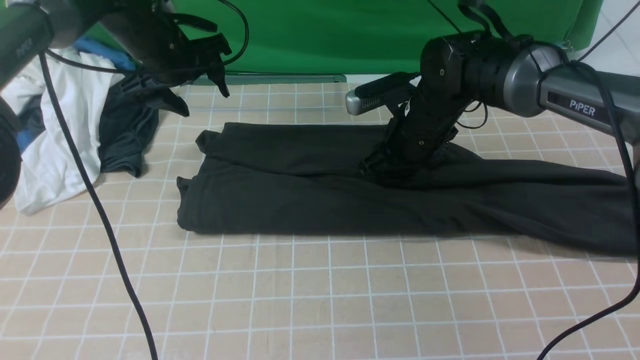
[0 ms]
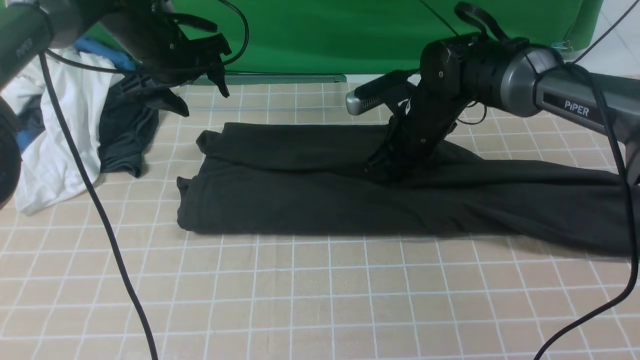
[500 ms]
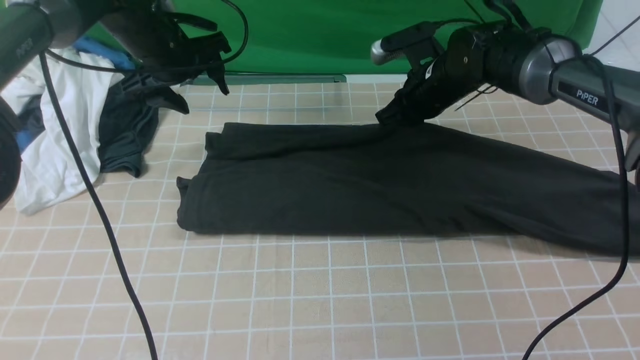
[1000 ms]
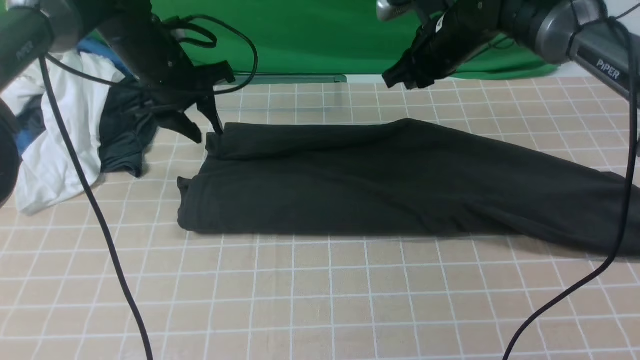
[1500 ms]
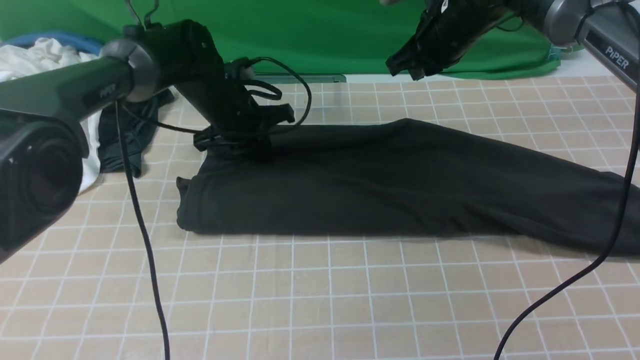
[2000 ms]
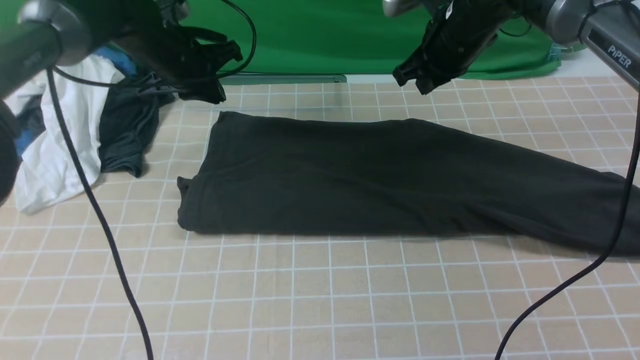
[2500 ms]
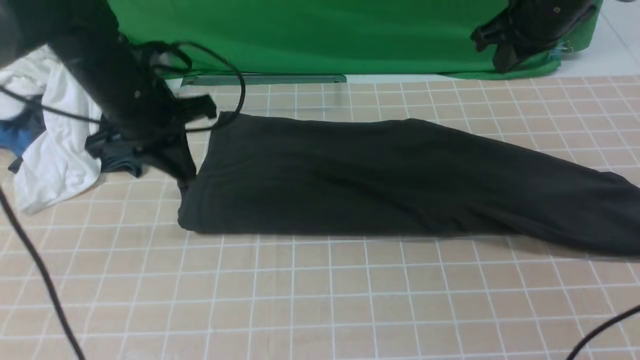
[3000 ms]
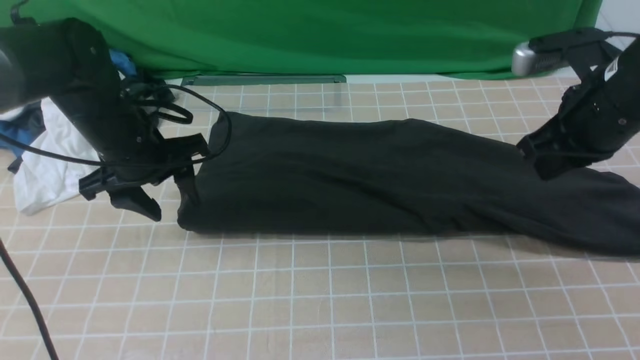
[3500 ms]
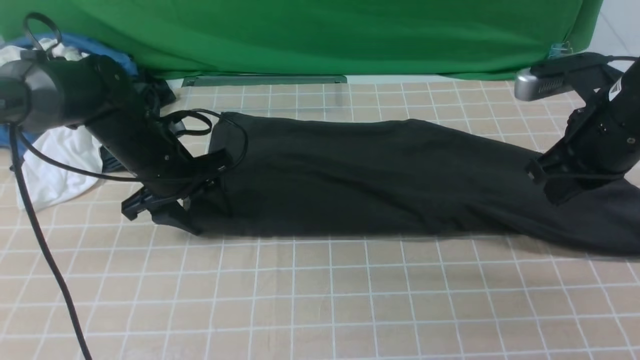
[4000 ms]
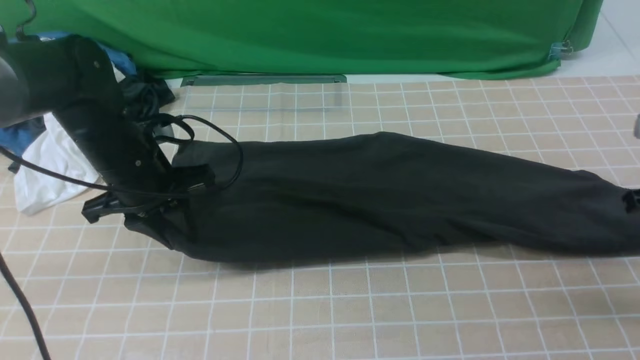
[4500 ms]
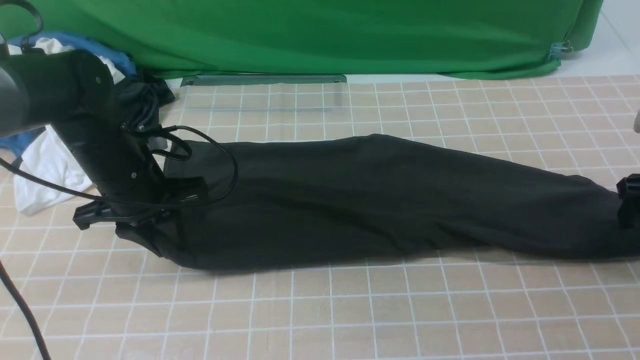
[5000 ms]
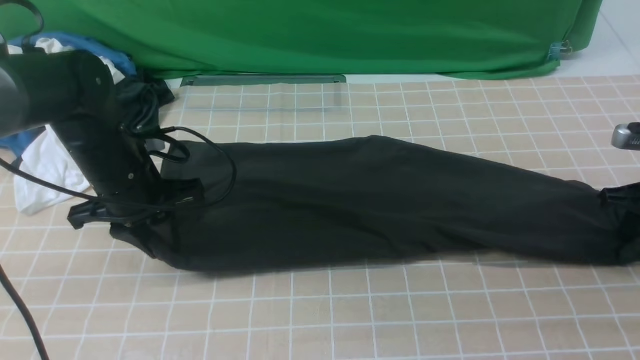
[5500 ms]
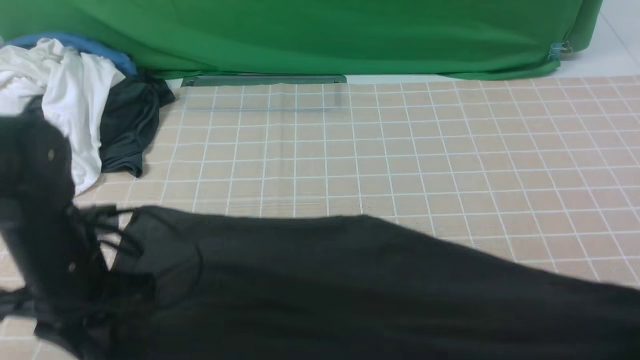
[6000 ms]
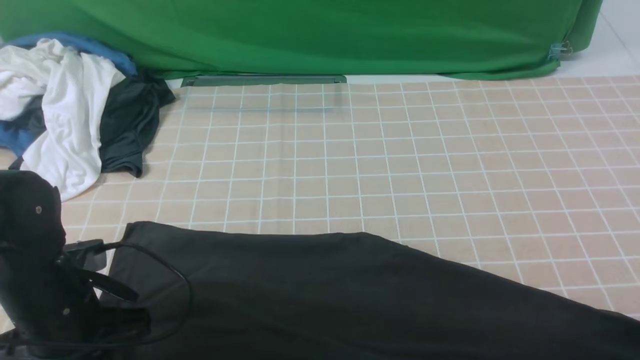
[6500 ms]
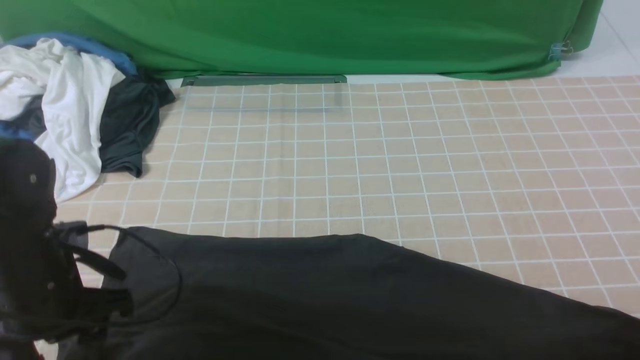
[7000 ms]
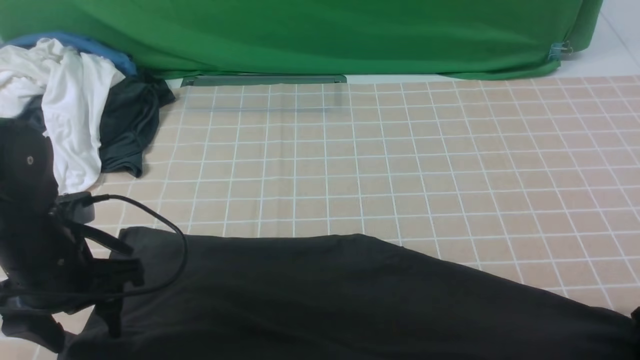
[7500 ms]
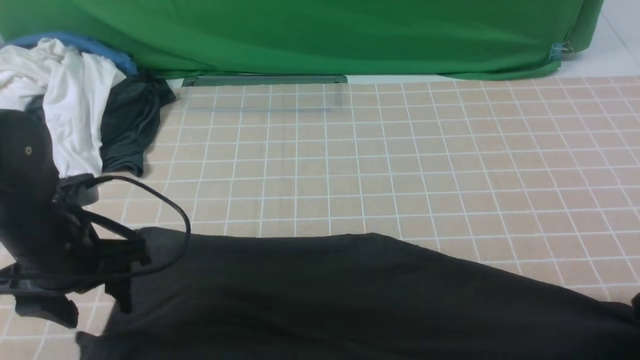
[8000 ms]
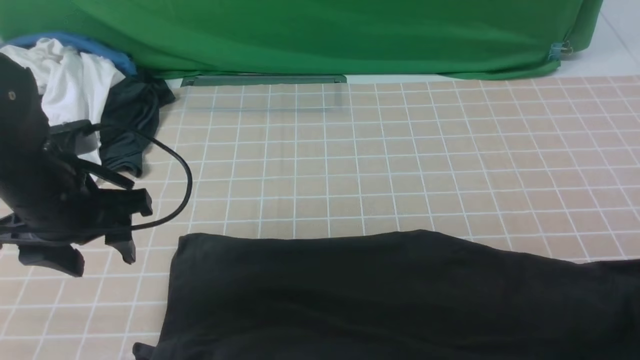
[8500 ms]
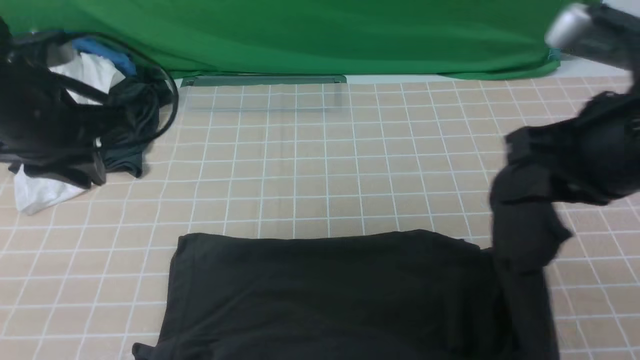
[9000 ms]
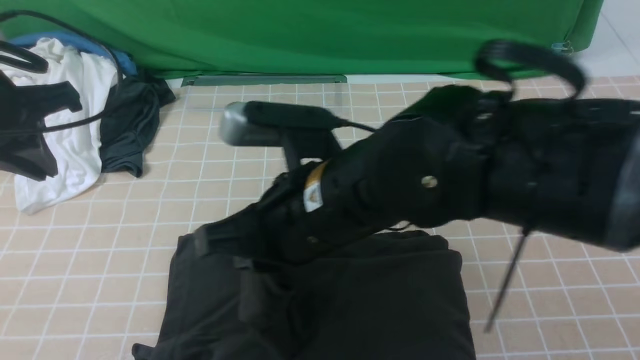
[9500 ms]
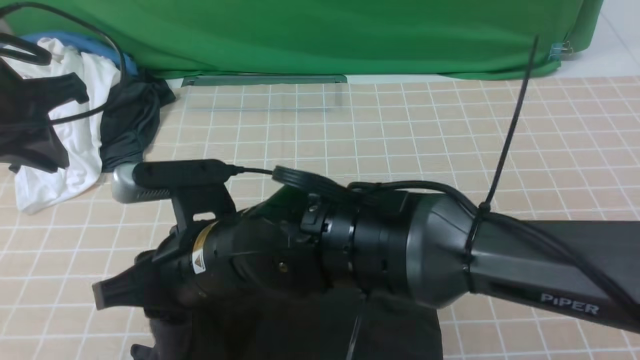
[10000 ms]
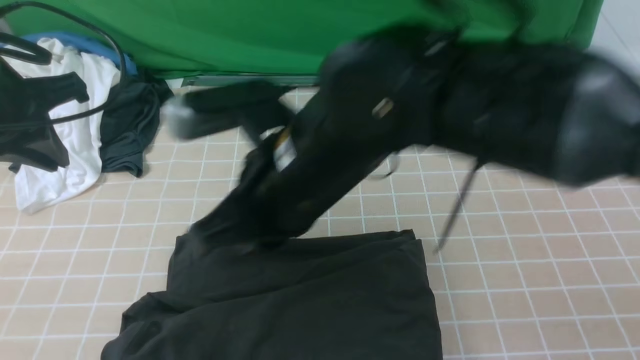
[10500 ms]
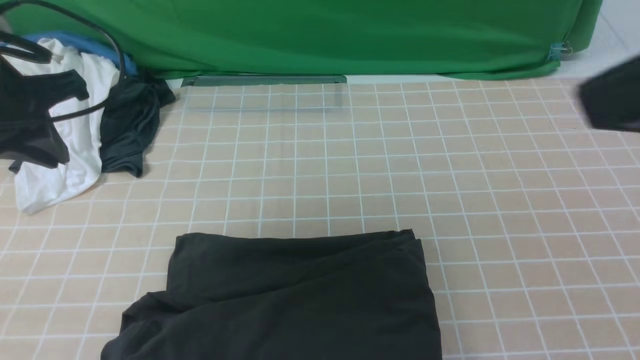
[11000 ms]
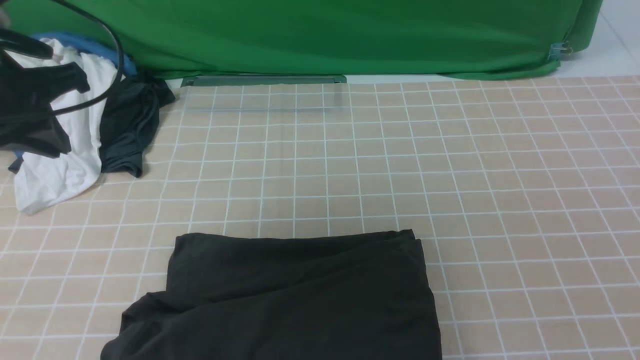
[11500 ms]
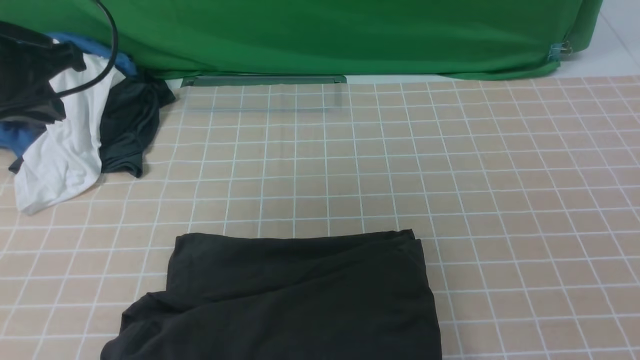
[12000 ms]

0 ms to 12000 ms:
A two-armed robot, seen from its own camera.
Step, 0 ms to 2000 ms: use both arms to drag the lower edge of the fabric forward and fold it over the upper edge.
Step, 2500 ms to 7500 ms: use the right arm to clamp the right edge of the fabric.
Step, 8000 ms to 10000 ms: use the right arm to drag the right edge of the fabric to the left and folds it over the left edge.
0 ms to 2000 ms: The left gripper goes roughly 10 cm downward and to the right, and closes up; the right gripper heads upward and forward, covering roughly 10 cm, and closes its fingers.
2000 ms to 4000 ms: The right gripper goes about 20 cm backward and to the right. The left gripper moves backward and to the left, roughly 10 cm, and opens up.
4000 ms to 6000 ms: The left gripper heads backward, covering some 15 cm, and closes up; the right gripper heads to the right, backward and downward, covering approximately 15 cm, and opens, then closes once more.
6000 ms to 8000 ms: The left gripper opens. Meanwhile the right gripper opens and closes again.
8000 ms to 10000 ms: The left gripper moves upward, approximately 10 cm, and closes its fingers, while the right gripper heads to the left, covering some 50 cm.
10000 ms to 12000 ms: The right gripper heads to the right and backward, covering approximately 35 cm, and closes.

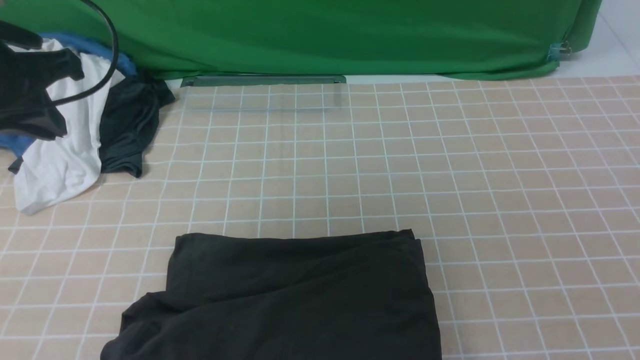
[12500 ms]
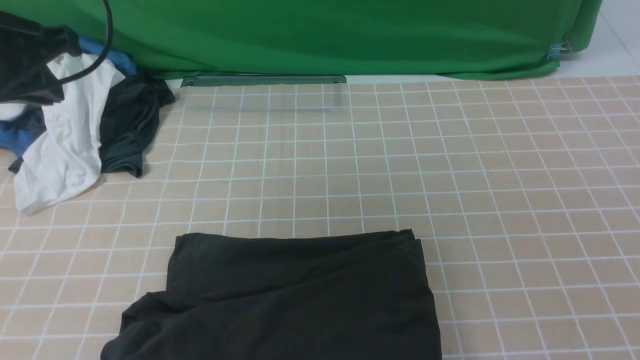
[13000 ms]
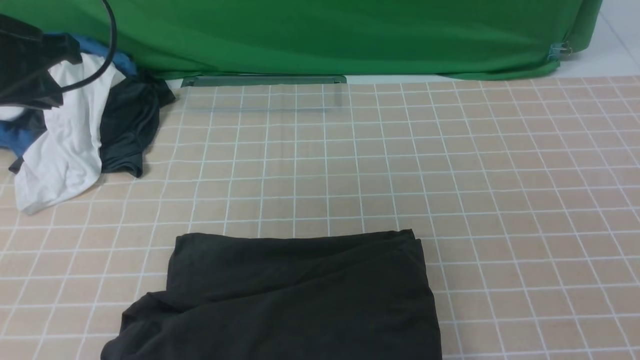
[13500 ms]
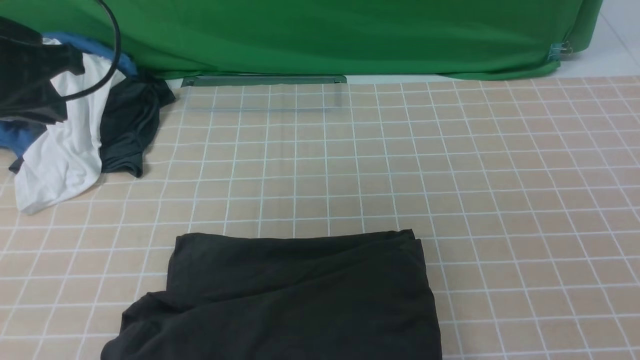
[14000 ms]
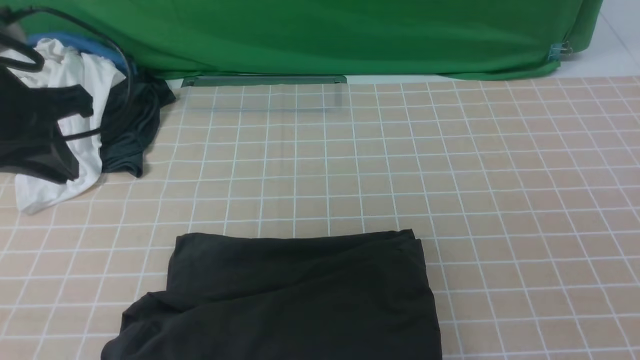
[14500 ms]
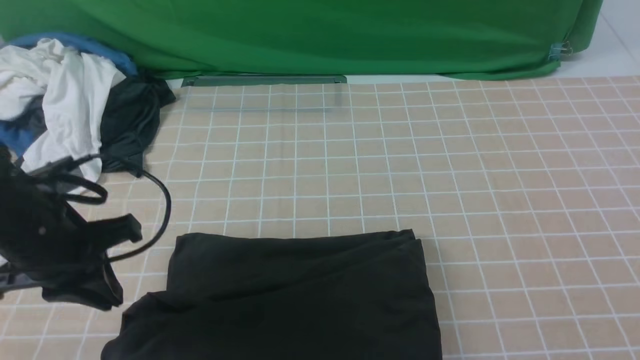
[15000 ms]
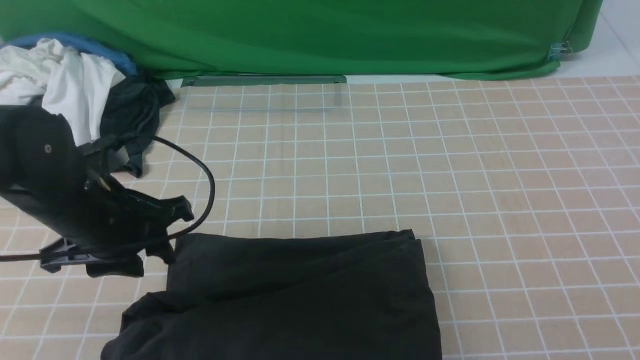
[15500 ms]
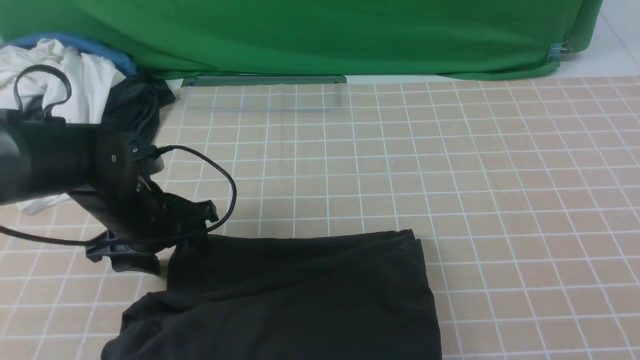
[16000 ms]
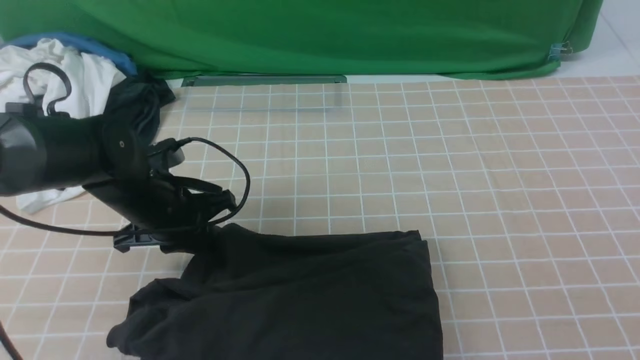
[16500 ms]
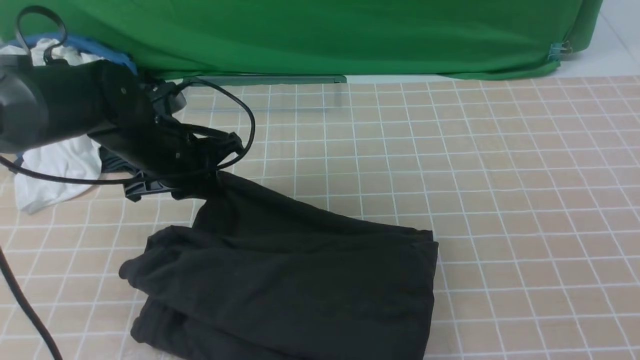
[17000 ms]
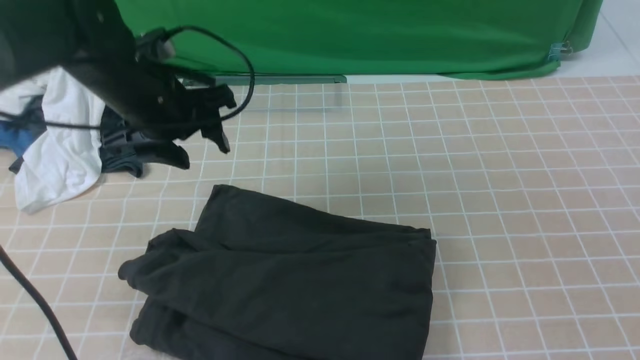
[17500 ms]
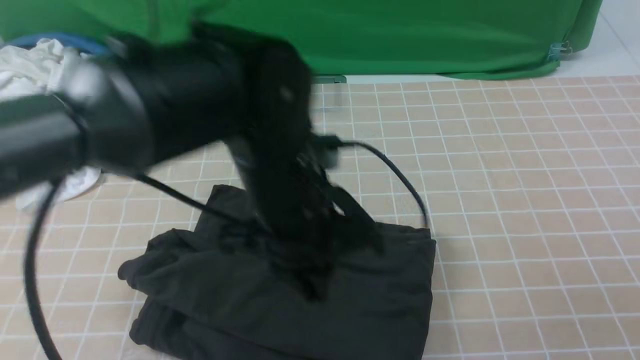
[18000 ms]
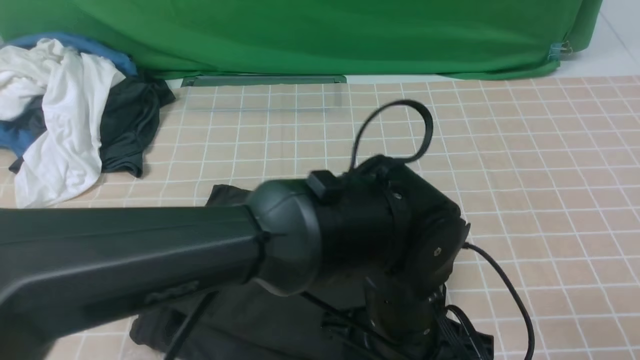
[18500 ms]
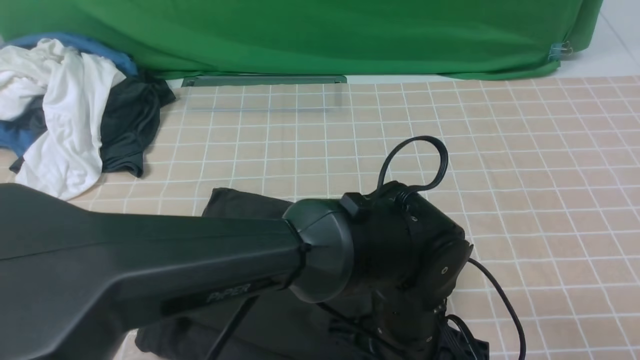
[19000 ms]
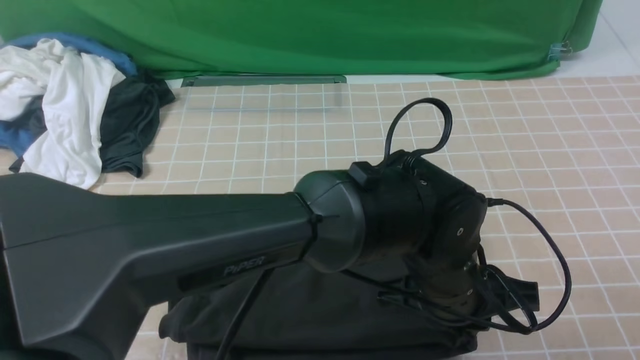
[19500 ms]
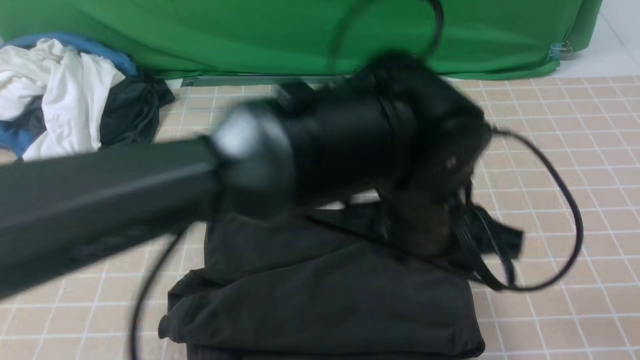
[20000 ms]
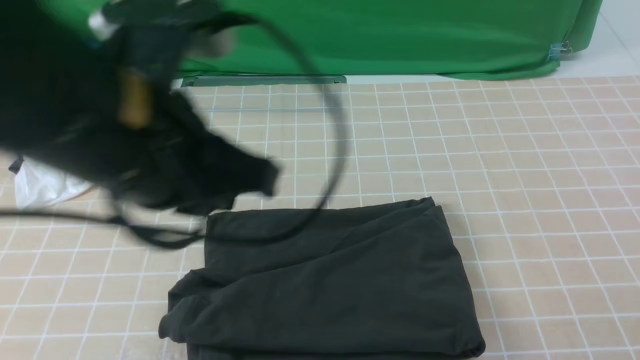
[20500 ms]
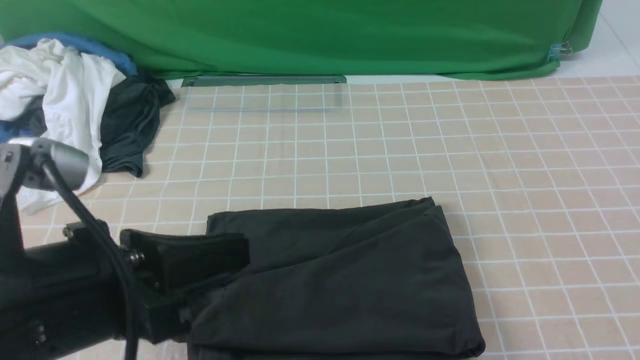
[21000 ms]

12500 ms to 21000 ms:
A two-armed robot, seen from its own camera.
14500 ms to 16500 ms: The left gripper goes approximately 20 cm downward and to the right, and opens, then closes again.
16500 ms to 19000 ms: The left gripper goes roughly 30 cm to the right and backward, and opens up.
19000 ms to 21000 ms: The left gripper goes approximately 30 cm to the left and upward, and closes its fingers.
